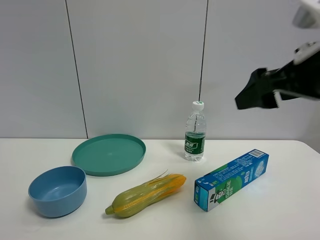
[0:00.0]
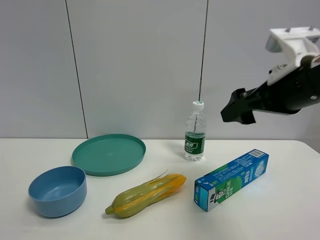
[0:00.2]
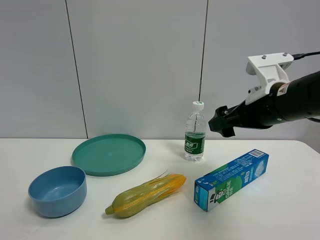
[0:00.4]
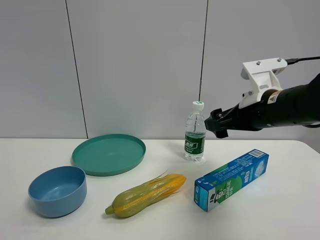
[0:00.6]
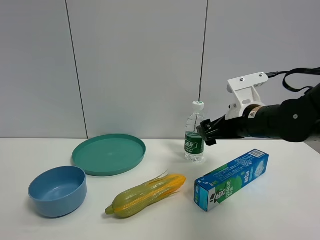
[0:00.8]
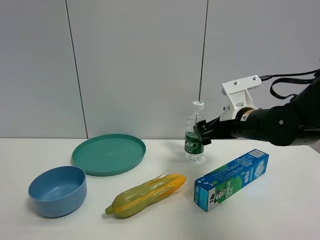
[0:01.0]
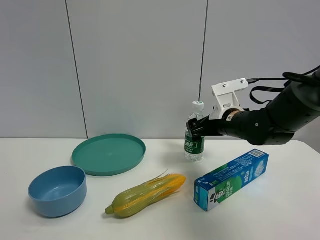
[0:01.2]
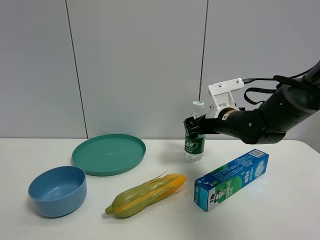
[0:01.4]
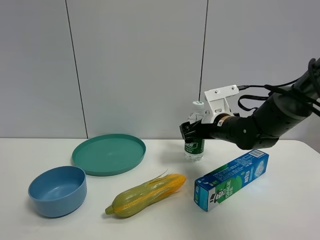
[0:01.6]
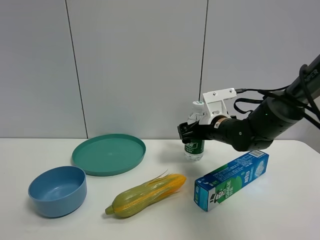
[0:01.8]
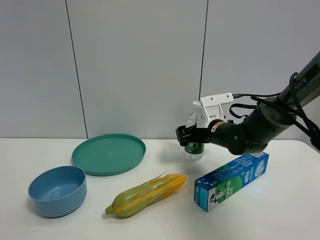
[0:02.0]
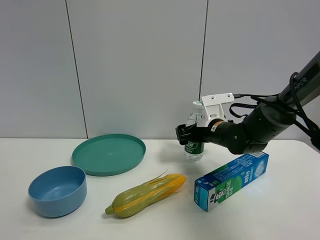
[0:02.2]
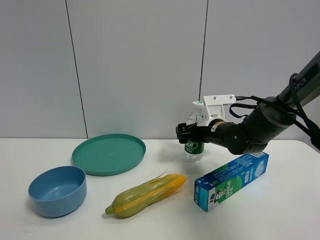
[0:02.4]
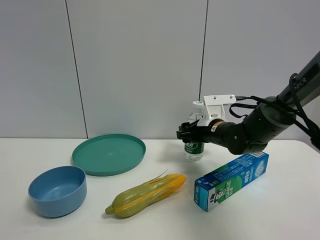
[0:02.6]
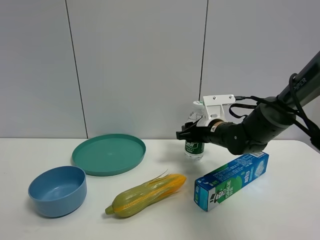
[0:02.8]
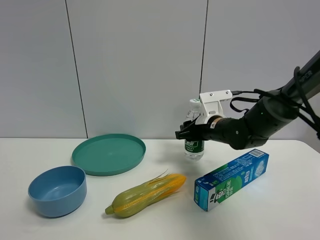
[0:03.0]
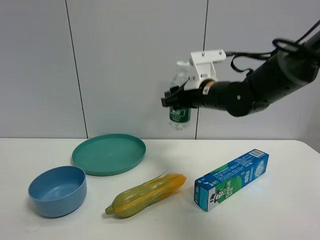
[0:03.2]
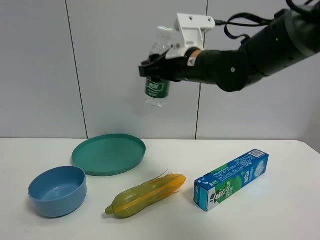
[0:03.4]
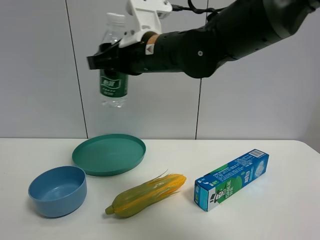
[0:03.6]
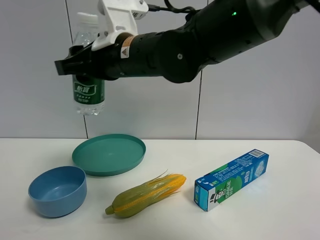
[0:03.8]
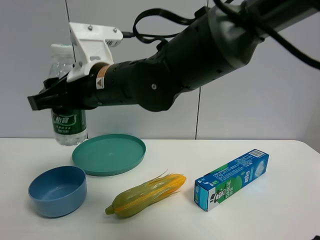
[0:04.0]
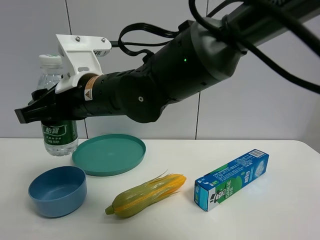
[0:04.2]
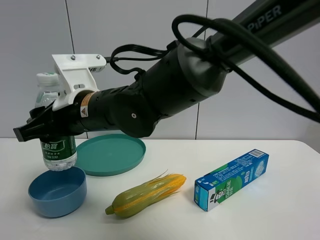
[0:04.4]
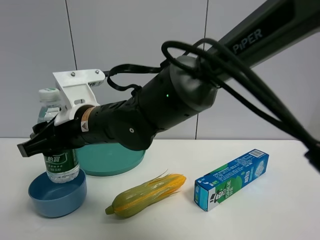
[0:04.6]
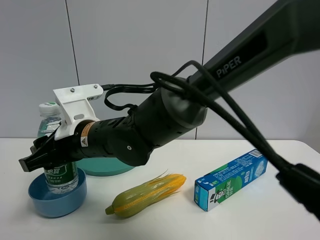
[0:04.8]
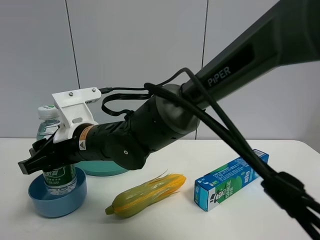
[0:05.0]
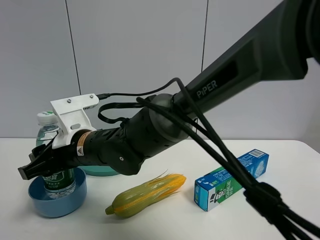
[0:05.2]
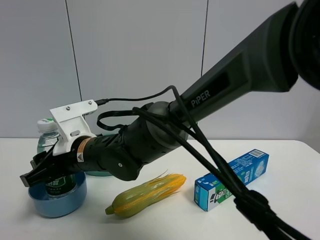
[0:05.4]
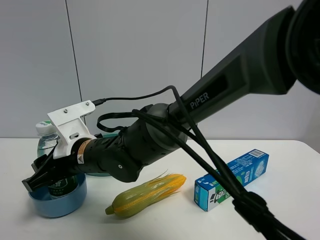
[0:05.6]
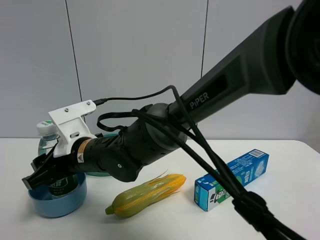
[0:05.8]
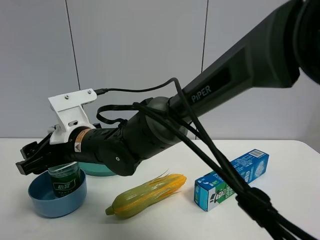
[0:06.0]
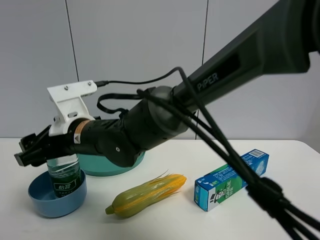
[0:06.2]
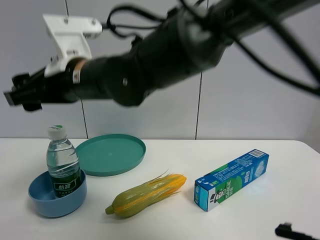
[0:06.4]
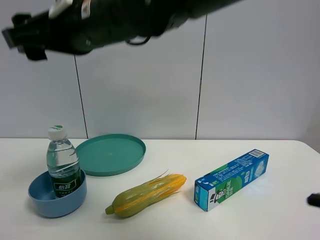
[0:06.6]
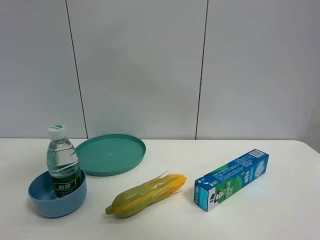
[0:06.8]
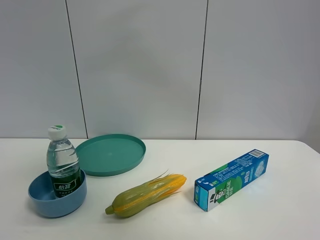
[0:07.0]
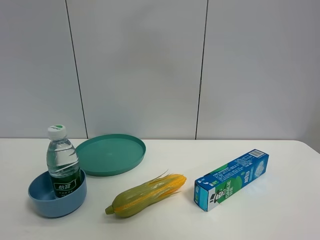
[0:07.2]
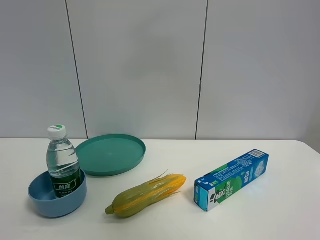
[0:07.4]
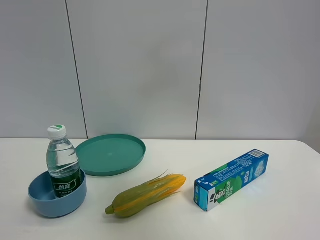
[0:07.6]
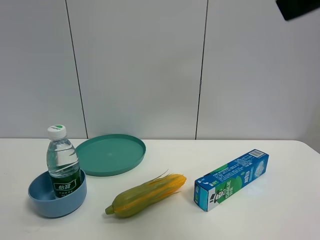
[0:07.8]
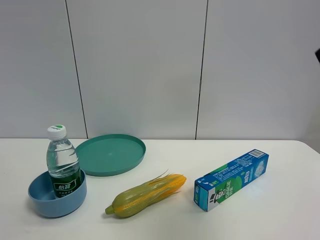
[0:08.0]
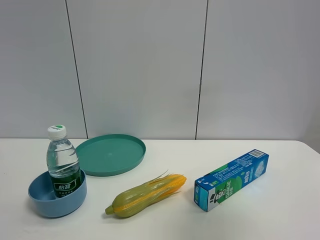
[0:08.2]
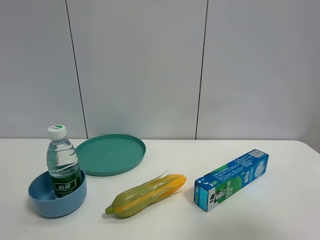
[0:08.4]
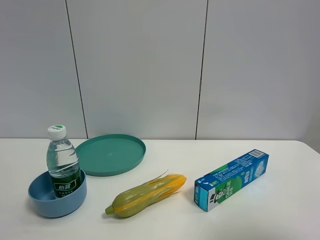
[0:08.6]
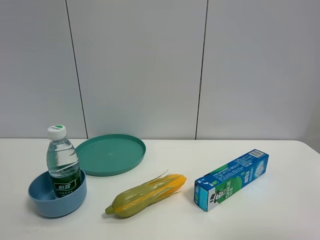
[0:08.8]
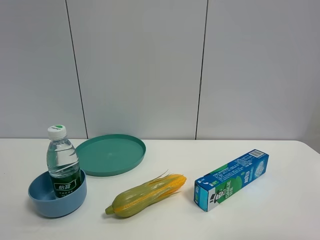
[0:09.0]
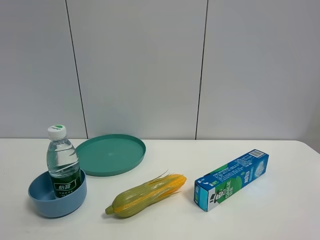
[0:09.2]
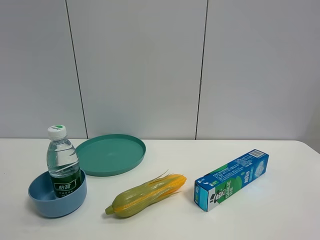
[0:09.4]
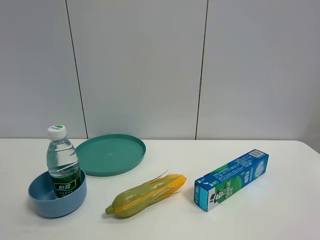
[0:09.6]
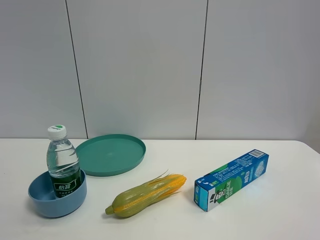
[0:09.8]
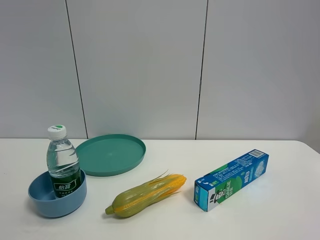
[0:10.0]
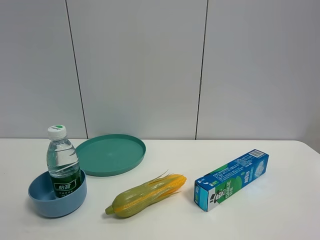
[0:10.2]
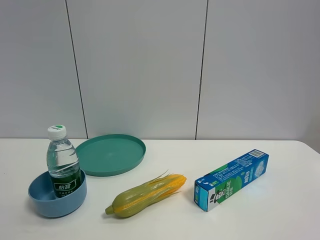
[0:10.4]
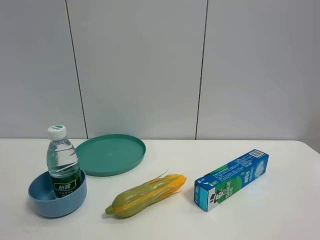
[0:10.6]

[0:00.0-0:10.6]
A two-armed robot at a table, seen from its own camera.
Task of the whole recording: the gripper move the object.
Step, 0:00.0 to 0:02.8: Grasp the YiBao mineral water with the right gripper.
Step, 0:03.0 to 0:06.0: Place the YiBao mineral water into the blue bowl with the right gripper.
0:00.0 to 0:01.6: The right gripper heads forward and downward, covering about 25 cm.
0:01.6 to 0:03.0: The right gripper closes up.
0:03.0 to 0:04.6: The right gripper travels to the left and backward by about 30 cm.
0:04.6 to 0:06.0: The right gripper opens its fingers.
0:06.0 to 0:07.6: The right gripper goes about 50 cm upward, to the right and backward.
0:07.6 to 0:09.0: The right gripper heads downward, to the right and backward, covering roughly 20 cm.

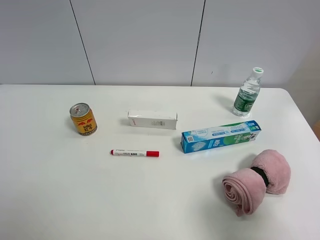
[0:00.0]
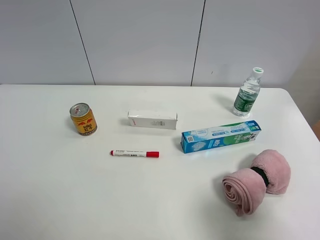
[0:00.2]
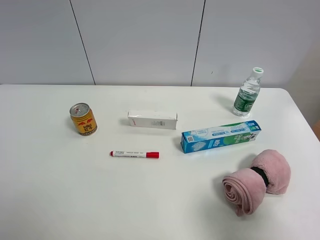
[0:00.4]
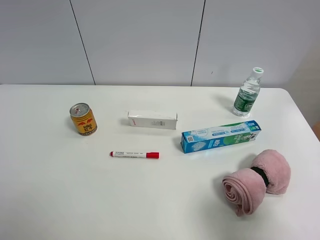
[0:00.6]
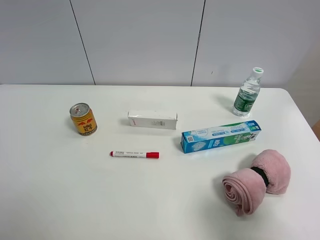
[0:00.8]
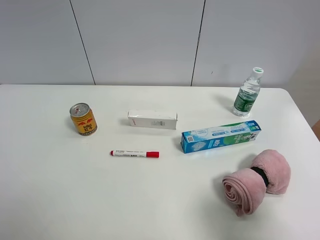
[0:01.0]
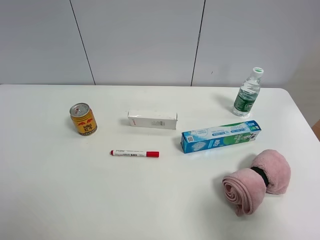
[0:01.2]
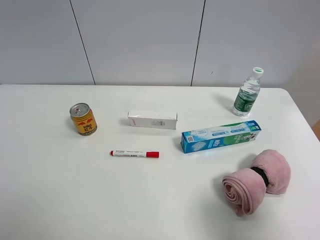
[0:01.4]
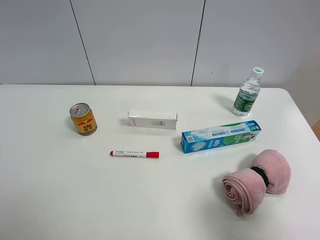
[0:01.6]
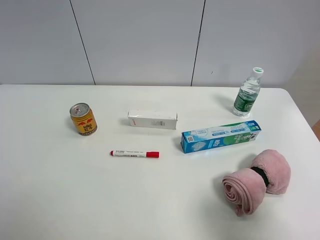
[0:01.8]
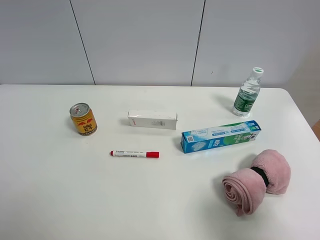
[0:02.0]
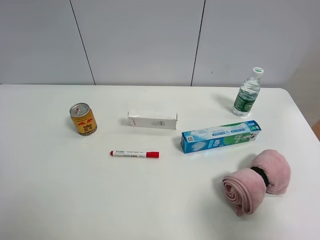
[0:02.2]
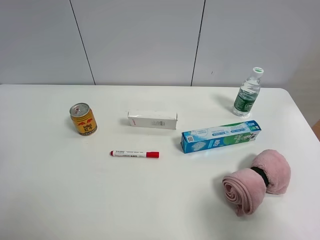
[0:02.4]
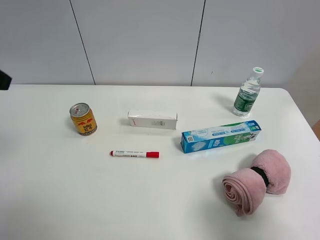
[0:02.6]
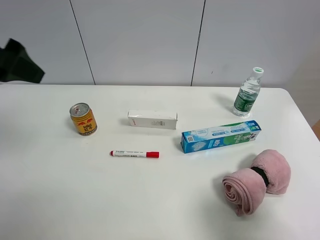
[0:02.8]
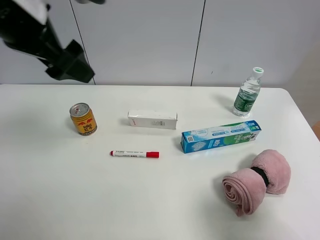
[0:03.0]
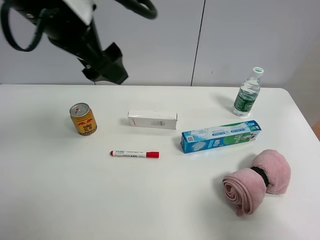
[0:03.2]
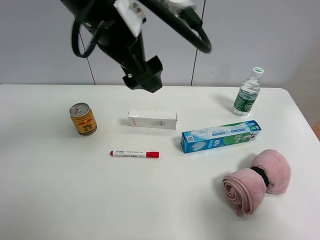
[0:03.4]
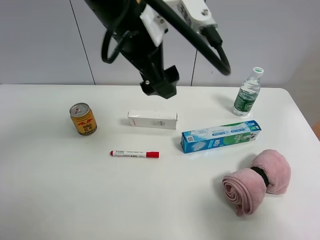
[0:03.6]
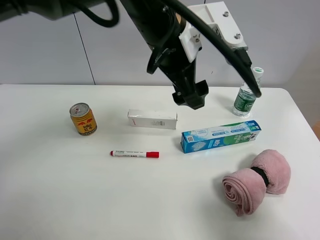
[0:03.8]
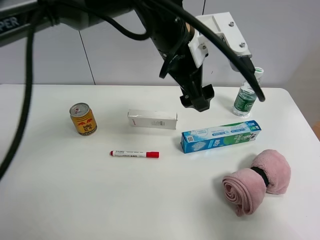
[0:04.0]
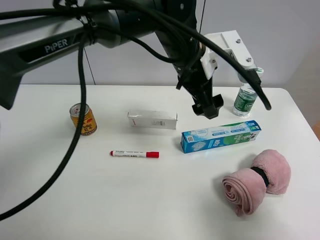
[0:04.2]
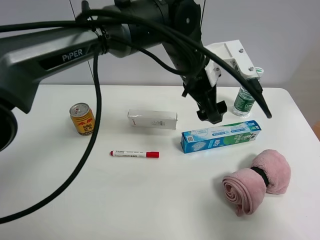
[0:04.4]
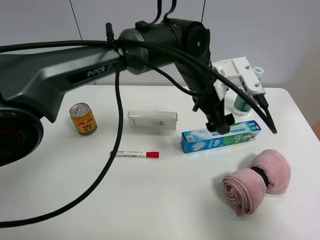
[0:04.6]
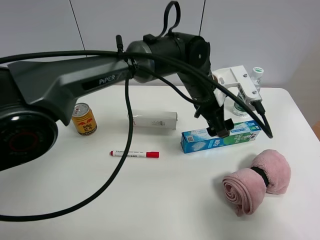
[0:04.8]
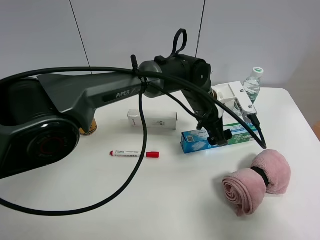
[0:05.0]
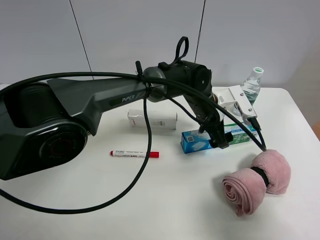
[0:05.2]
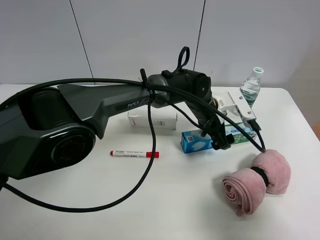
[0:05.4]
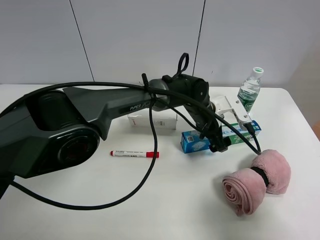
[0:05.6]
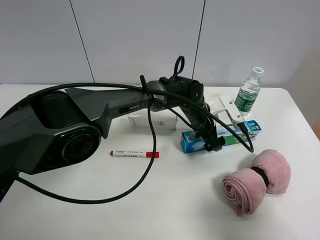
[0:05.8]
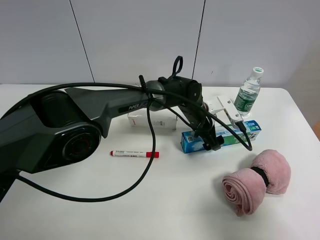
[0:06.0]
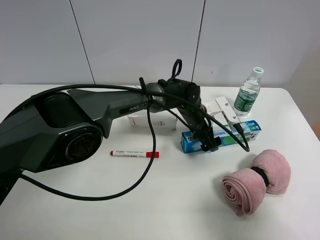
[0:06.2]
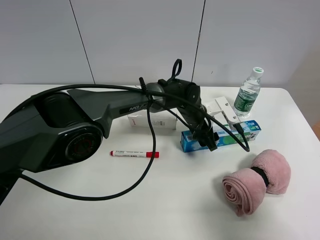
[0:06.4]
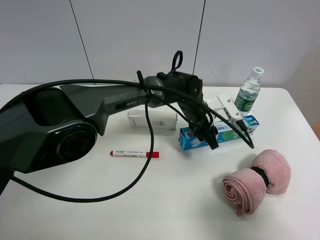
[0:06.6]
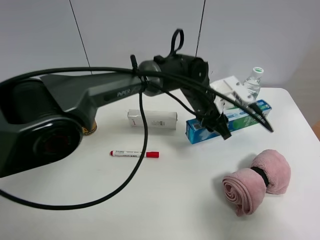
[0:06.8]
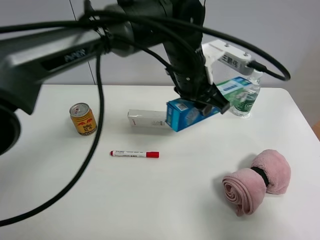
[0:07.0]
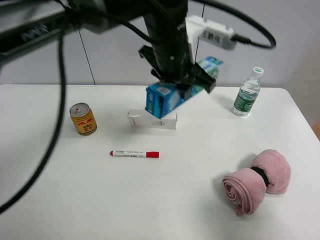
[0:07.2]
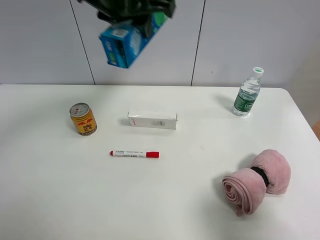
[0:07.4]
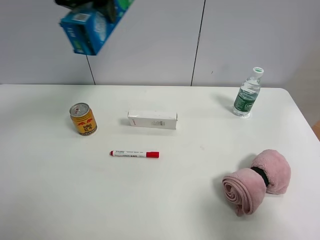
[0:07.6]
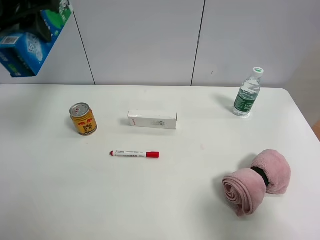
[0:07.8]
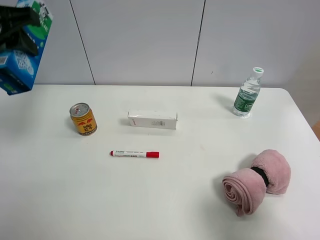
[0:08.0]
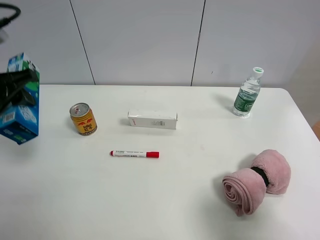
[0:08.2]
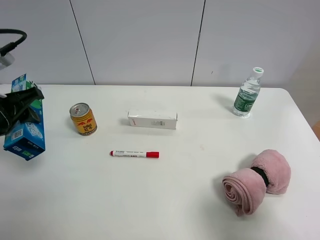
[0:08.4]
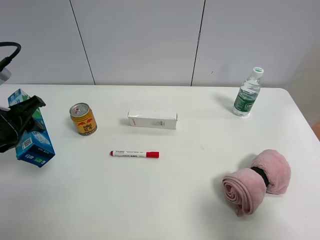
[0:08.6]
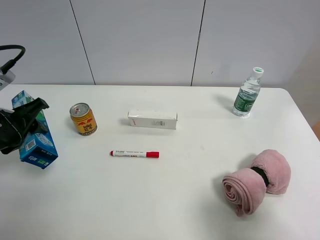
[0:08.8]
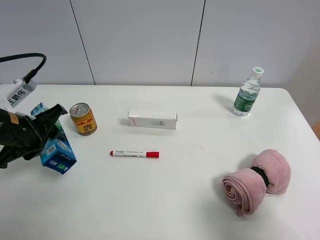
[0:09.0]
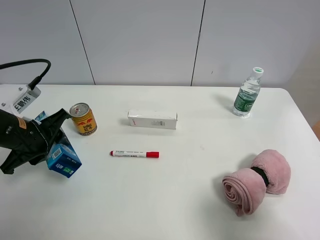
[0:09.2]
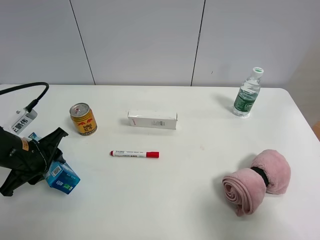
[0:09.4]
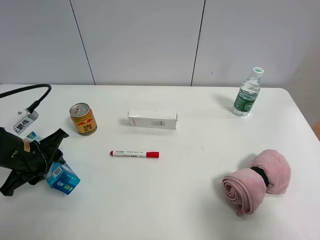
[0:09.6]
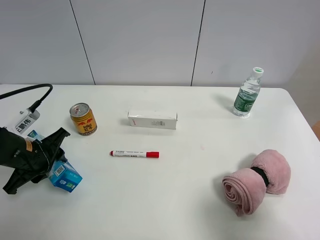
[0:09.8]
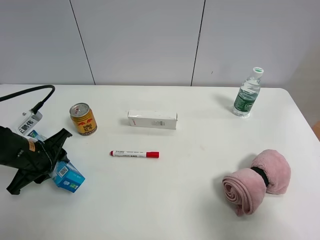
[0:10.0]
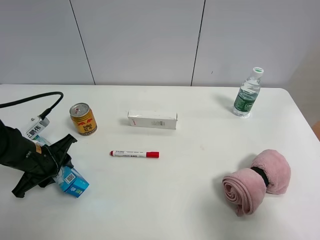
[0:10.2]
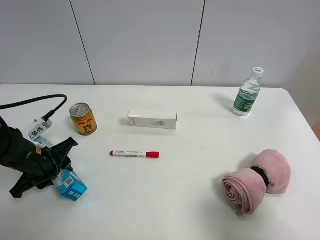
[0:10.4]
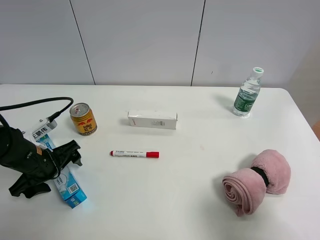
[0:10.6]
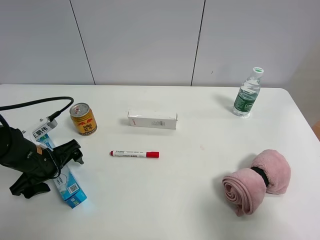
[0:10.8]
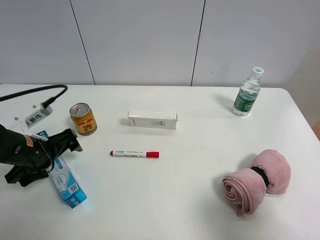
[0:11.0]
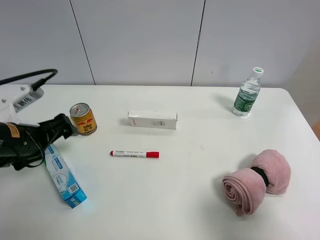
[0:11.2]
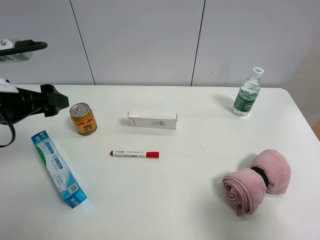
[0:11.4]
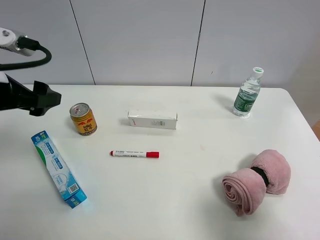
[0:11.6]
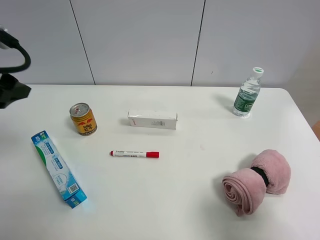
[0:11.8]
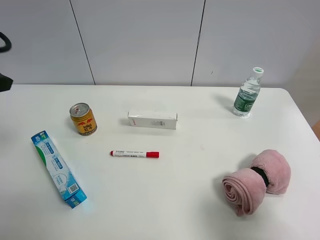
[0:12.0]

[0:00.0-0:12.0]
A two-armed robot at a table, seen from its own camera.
Task of the whole recording: the gripper move the object.
Step, 0:00.0 to 0:06.4: Grasp the toothpaste with the left gripper.
Step, 0:06.6 to 0:11.2: Place the toothpaste on the table with the left gripper.
0:00.0 to 0:01.6: The two grippers keep their place.
0:01.6 to 0:03.0: The left gripper heads forward, to the right and upward, covering some 30 cm.
0:03.0 to 0:04.4: The left gripper heads to the right and downward, covering roughly 30 cm.
0:04.4 to 0:06.0: The left gripper goes about 15 cm downward.
0:06.0 to 0:07.6: The left gripper moves upward and to the left, approximately 40 cm, and closes up.
0:07.6 to 0:09.0: The left gripper shifts approximately 25 cm downward and to the left.
0:09.0 to 0:10.4: The left gripper moves downward, about 10 cm.
0:10.4 to 0:12.0: The left gripper heads upward, covering roughly 25 cm, and opens its fingers.
